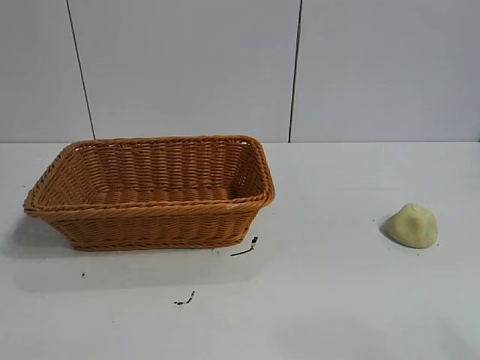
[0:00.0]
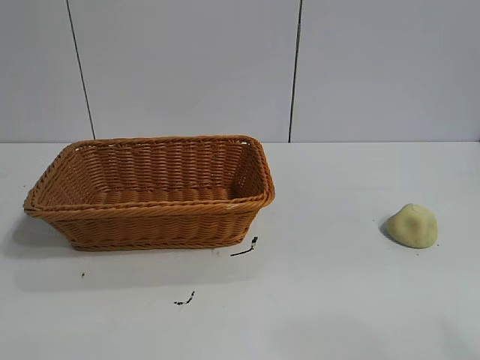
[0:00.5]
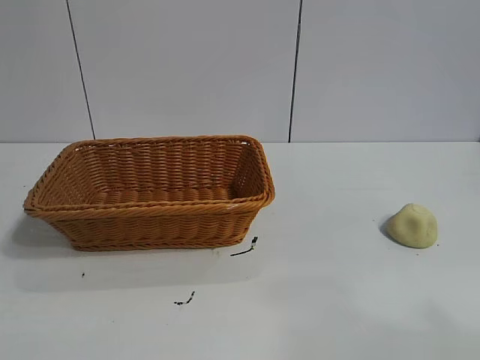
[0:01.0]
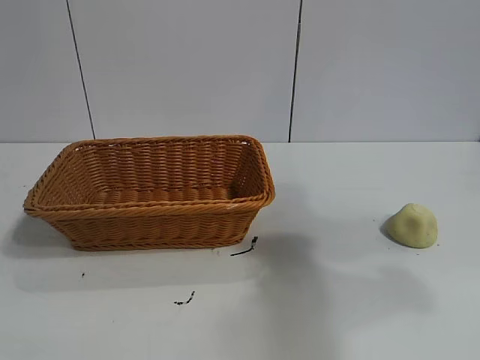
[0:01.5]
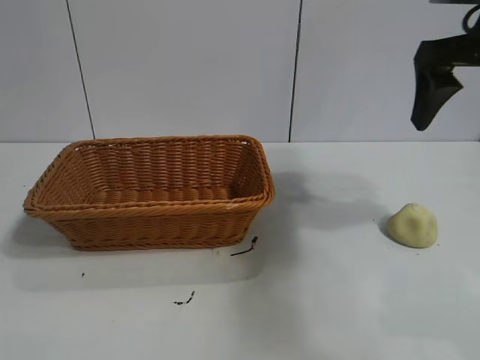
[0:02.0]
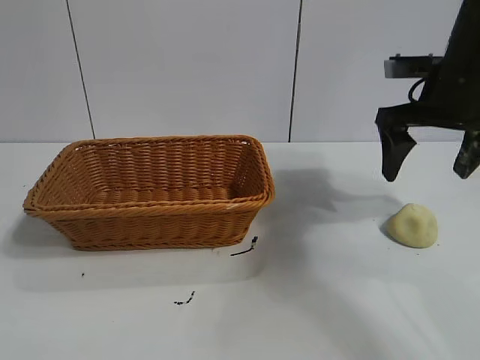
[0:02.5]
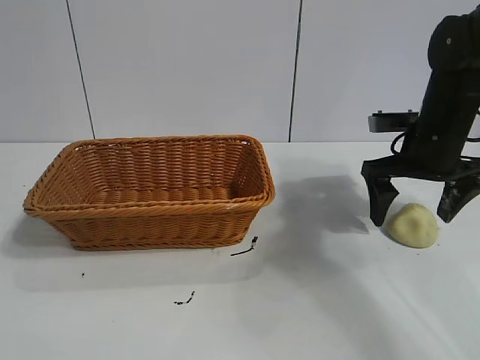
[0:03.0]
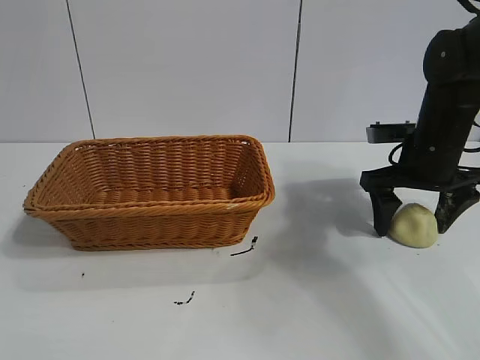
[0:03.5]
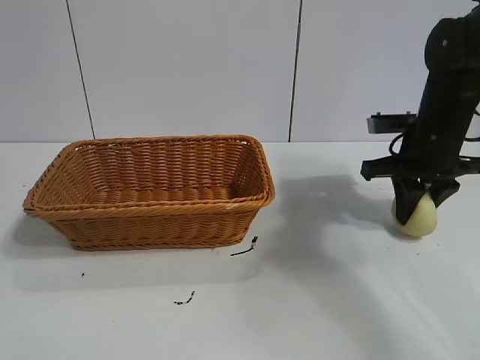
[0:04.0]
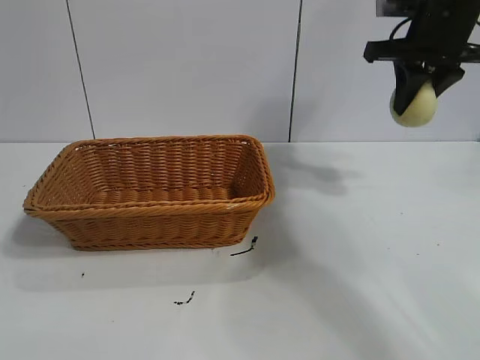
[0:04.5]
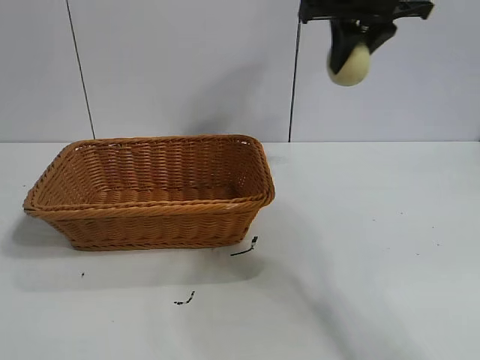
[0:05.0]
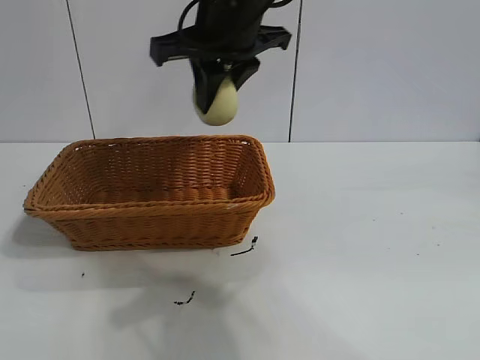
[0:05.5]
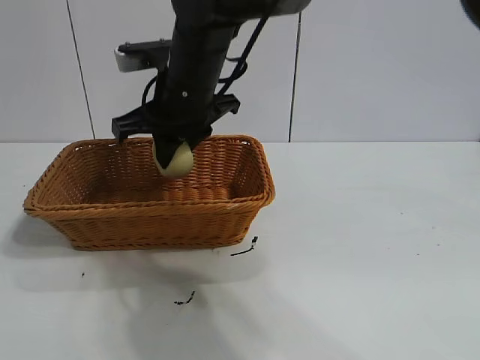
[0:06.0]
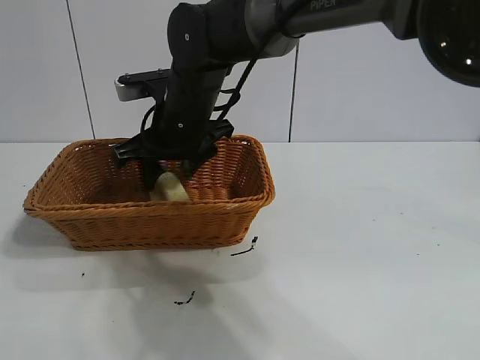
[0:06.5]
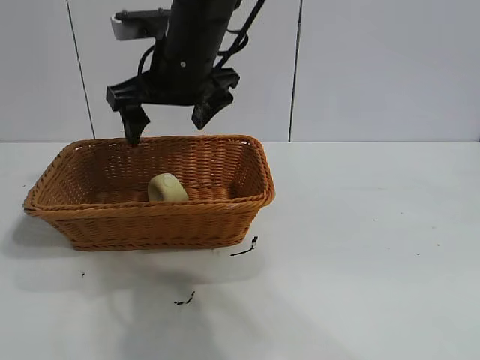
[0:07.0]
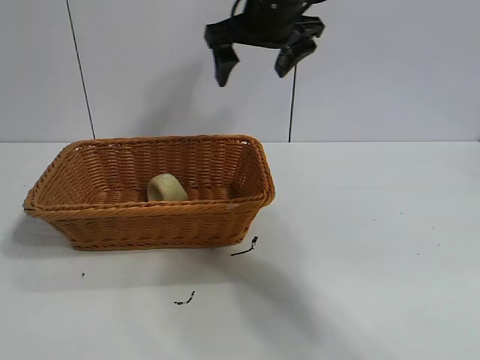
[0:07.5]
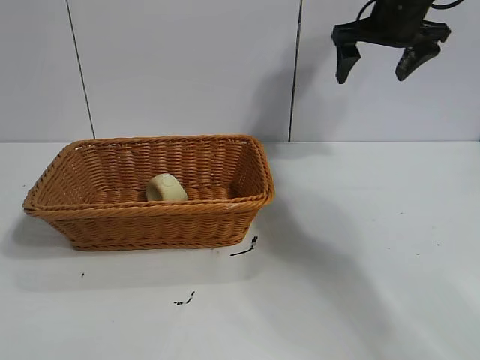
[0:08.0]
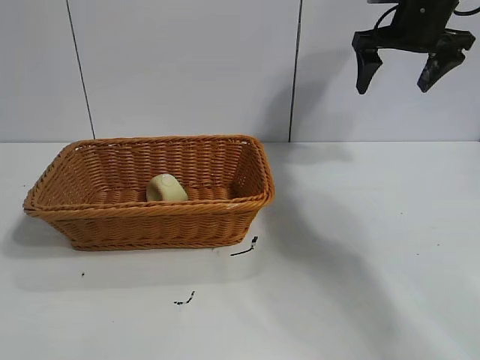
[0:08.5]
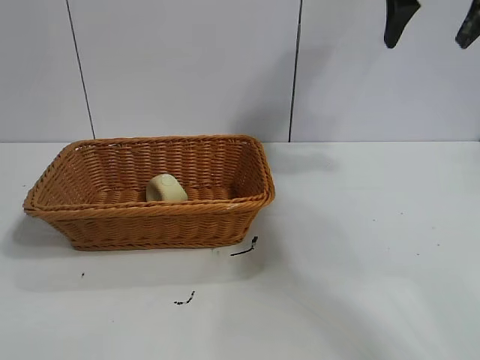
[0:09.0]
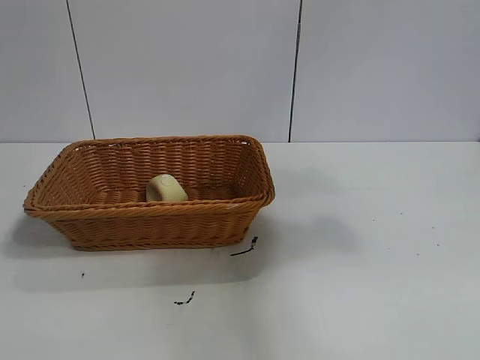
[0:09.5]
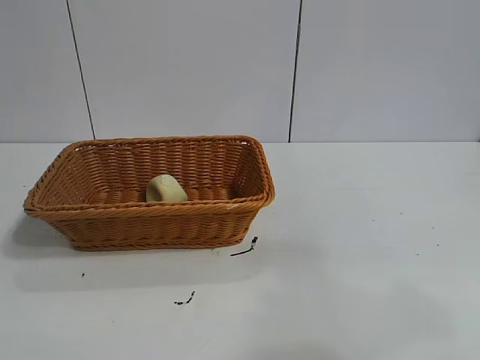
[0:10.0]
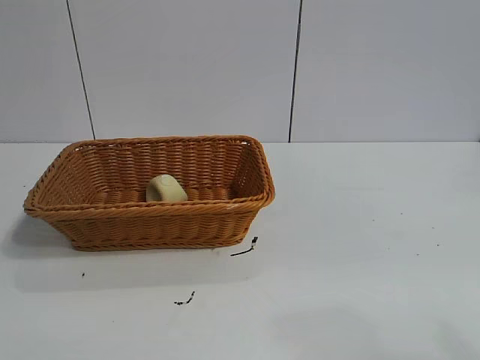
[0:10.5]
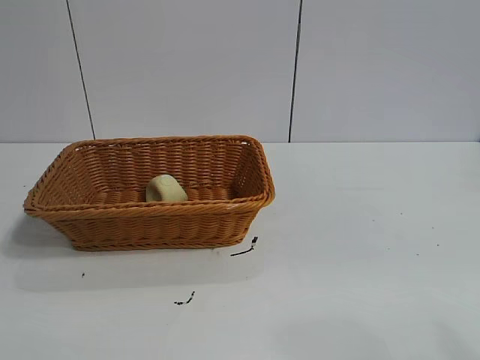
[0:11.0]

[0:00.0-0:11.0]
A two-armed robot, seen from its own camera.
Task of the whole recording: pick up the egg yolk pastry and put it into the basket.
Step, 0:01.0 to 0:03.5: Grasp egg yolk pastry with right gripper.
Step, 0:04.0 to 0:06.5: Place the egg yolk pastry in the basket with right gripper.
